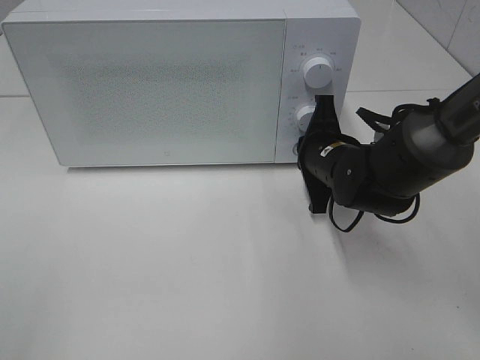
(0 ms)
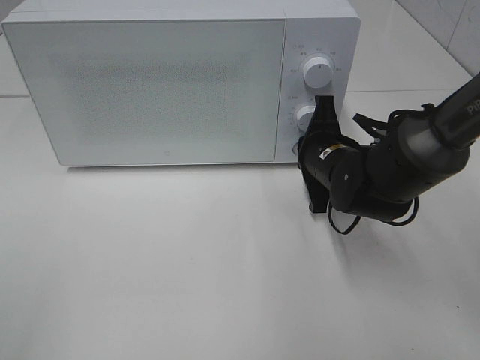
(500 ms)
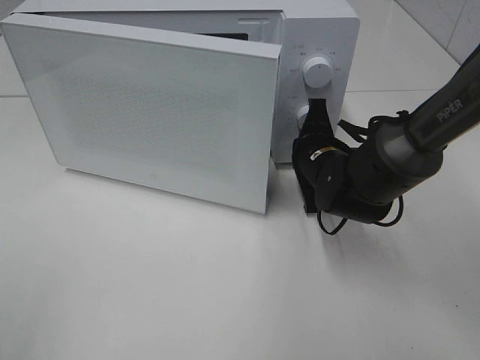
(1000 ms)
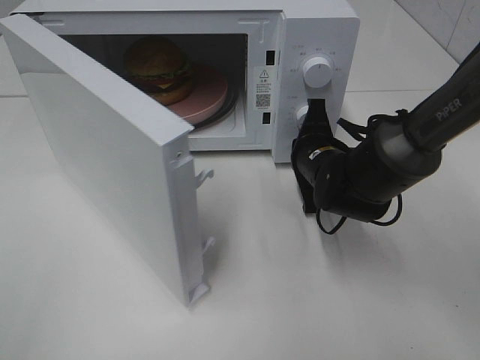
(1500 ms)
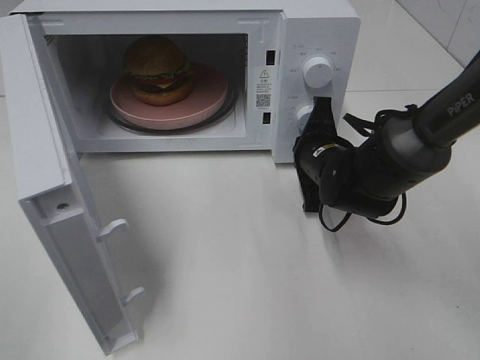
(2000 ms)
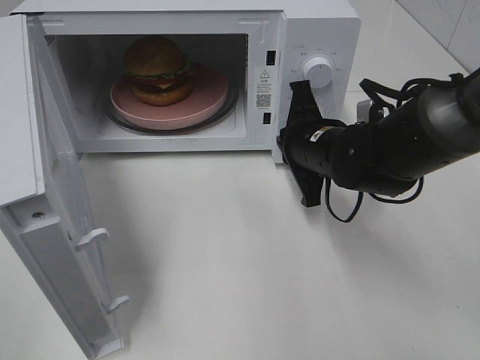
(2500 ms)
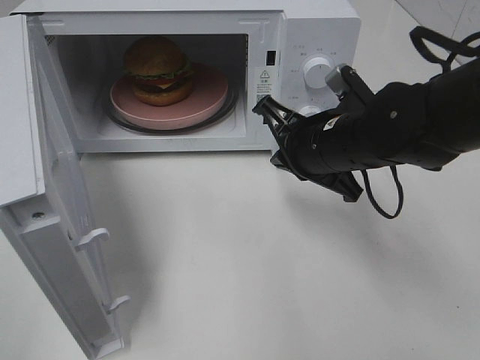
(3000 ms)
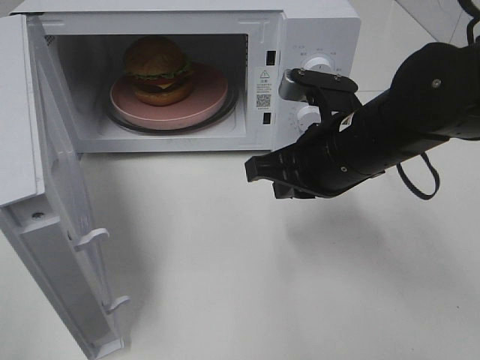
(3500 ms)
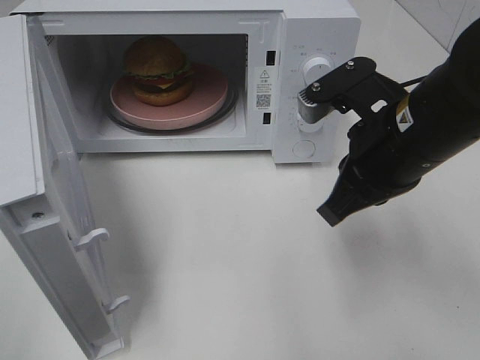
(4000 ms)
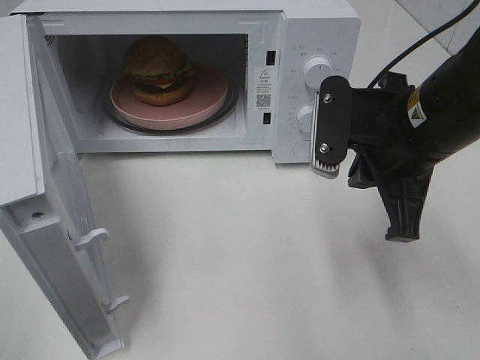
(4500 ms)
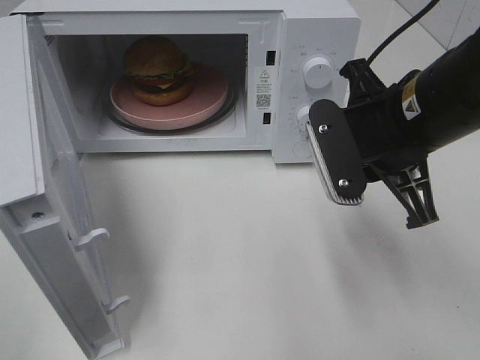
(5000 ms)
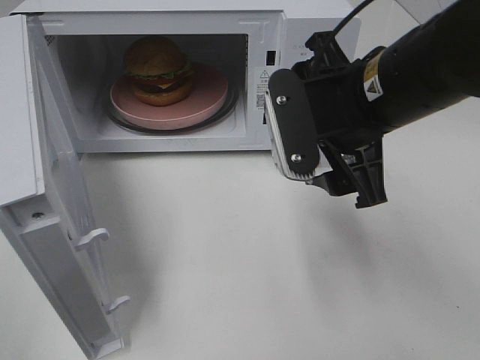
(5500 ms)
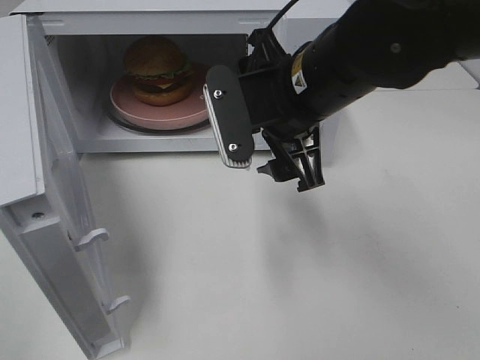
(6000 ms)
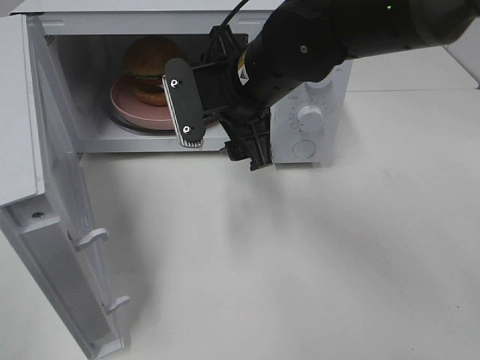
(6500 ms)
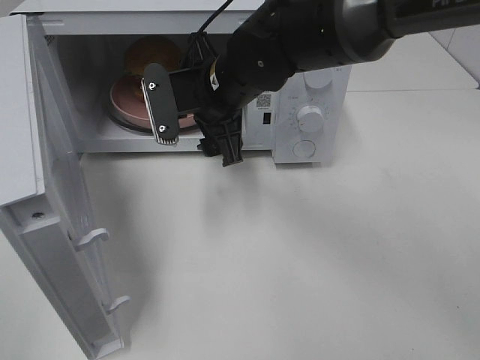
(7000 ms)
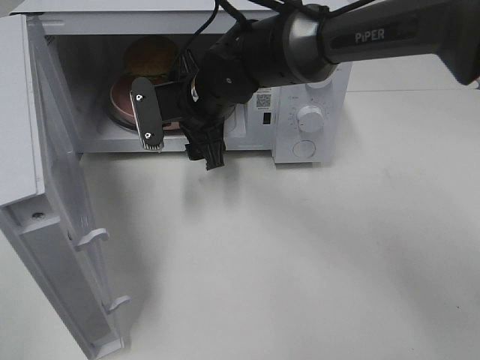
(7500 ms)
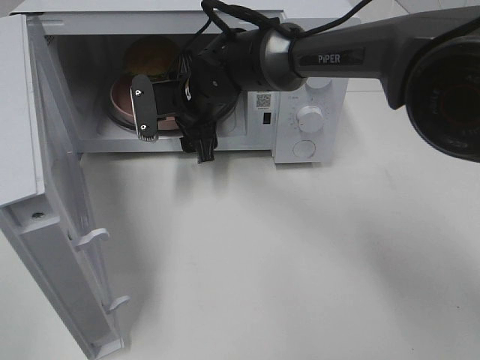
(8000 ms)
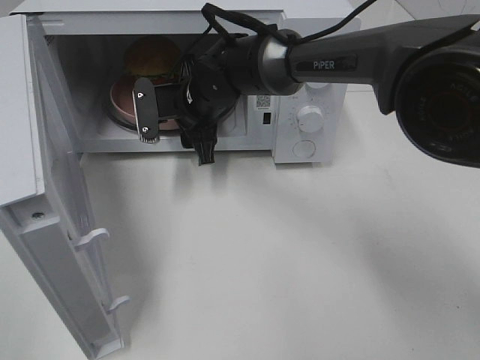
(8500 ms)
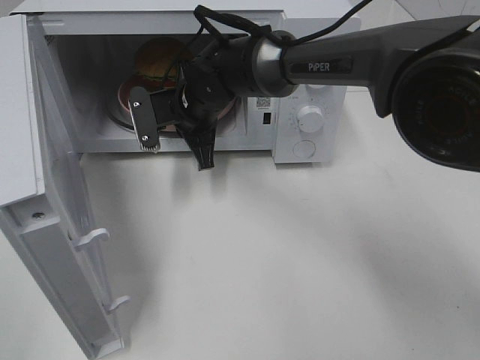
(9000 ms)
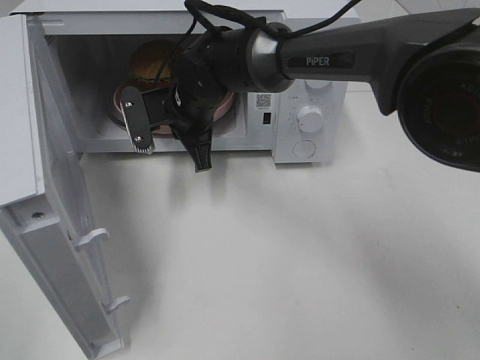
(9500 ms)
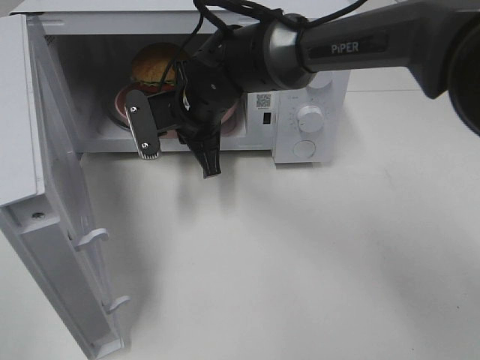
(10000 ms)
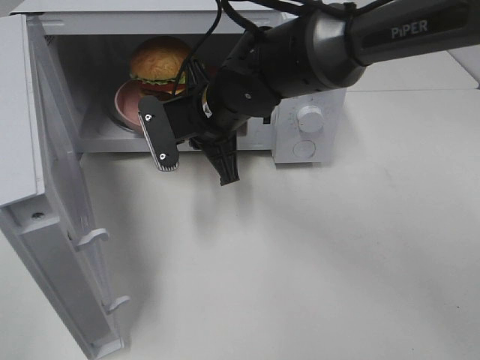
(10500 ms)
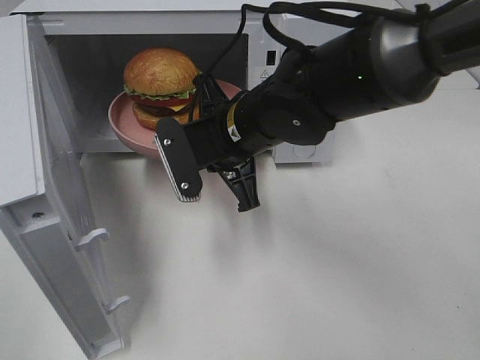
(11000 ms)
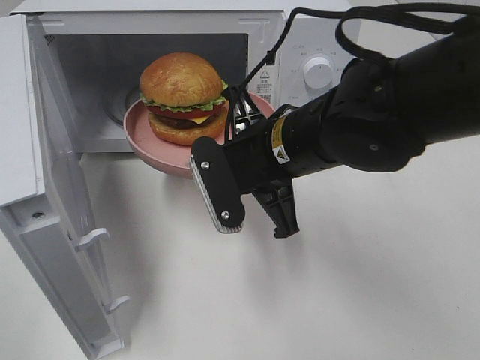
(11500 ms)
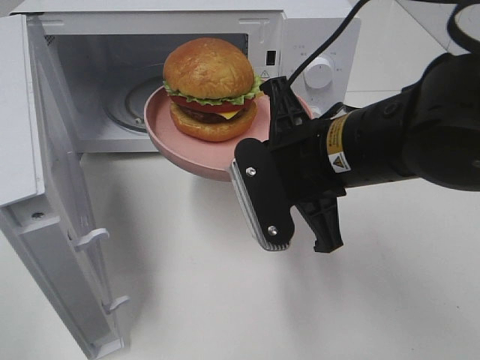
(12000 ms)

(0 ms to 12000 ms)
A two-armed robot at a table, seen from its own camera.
Task of the whole recording: Heat the burger.
Step, 0 ms - 2000 ms: Right hand: press the switch.
Step, 2500 ms - 8500 ms: Right hand: grab the plate with the hamburger.
2000 ms - 4000 ms: The right gripper moves upward and backward, about 15 cm.
4000 ms - 6000 ms: The right gripper shifts some 10 cm to the left, and opens up.
6000 ms - 8000 ms: The right gripper is displaced forward, to the left and downward by roughly 20 cm.
8000 ms - 10000 ms: The right gripper closes.
10000 ms - 12000 ms: The right gripper is displaced backward and to the right by roughly 20 cm.

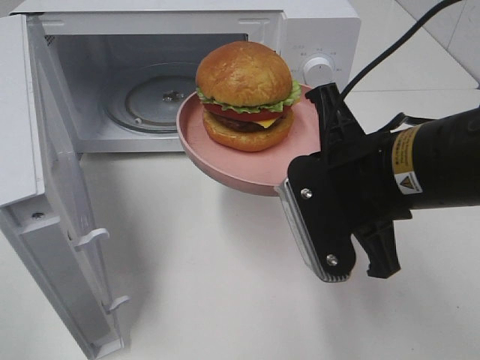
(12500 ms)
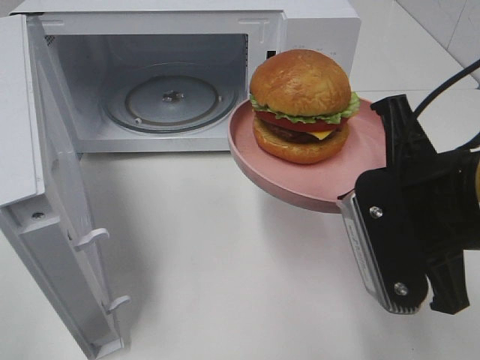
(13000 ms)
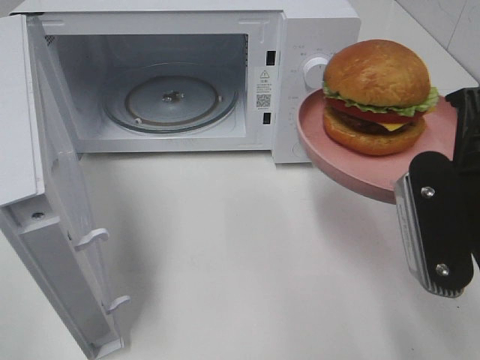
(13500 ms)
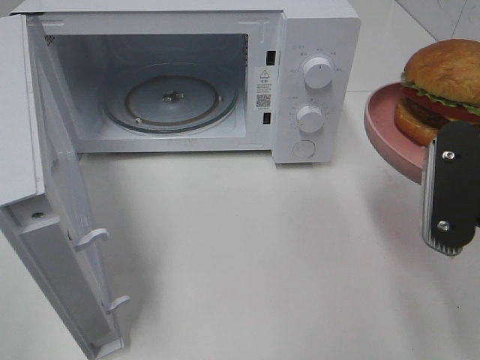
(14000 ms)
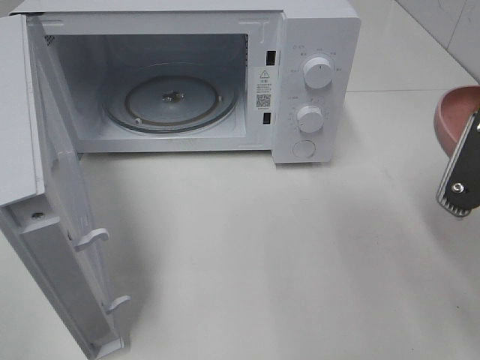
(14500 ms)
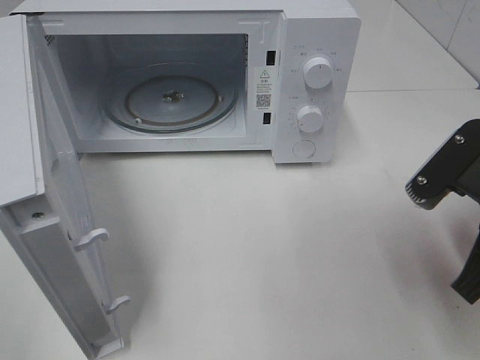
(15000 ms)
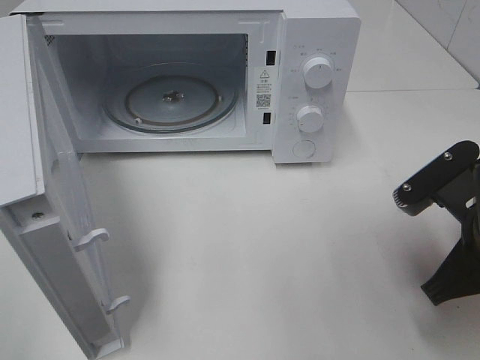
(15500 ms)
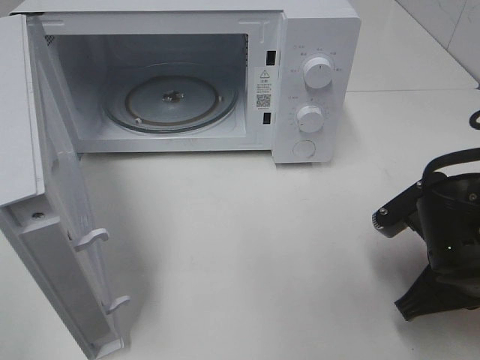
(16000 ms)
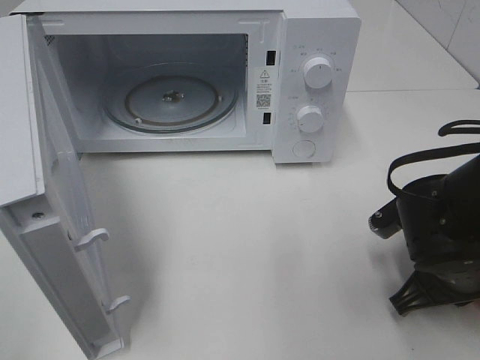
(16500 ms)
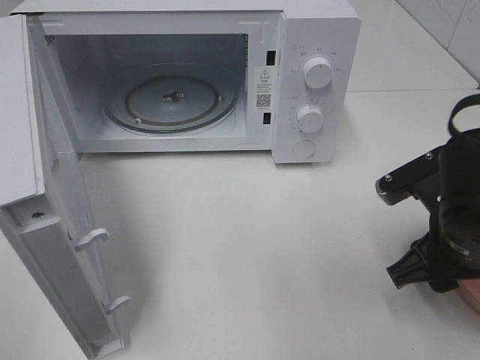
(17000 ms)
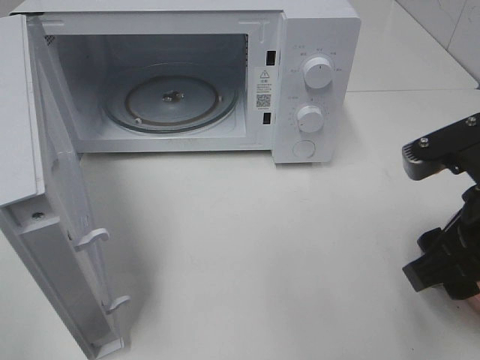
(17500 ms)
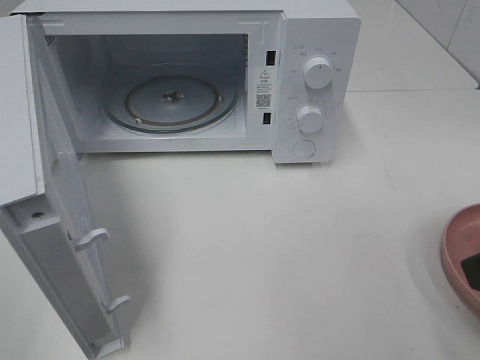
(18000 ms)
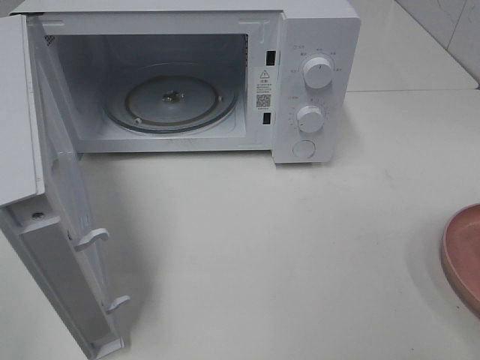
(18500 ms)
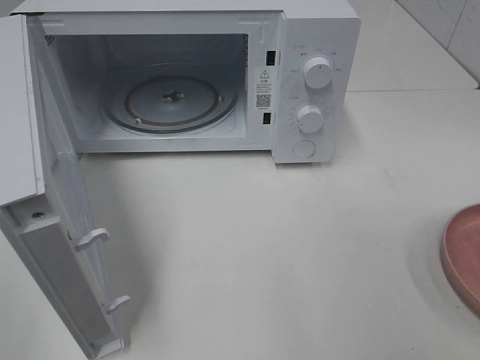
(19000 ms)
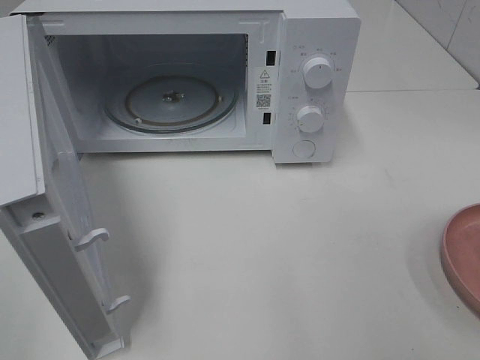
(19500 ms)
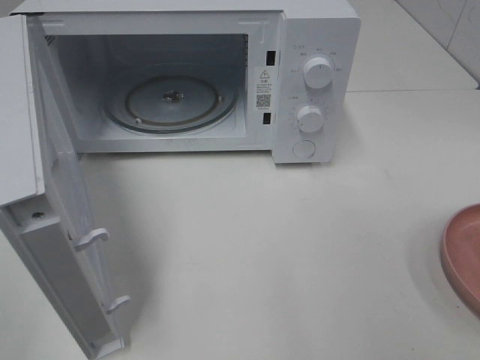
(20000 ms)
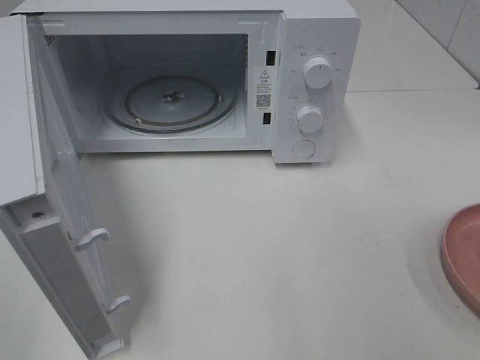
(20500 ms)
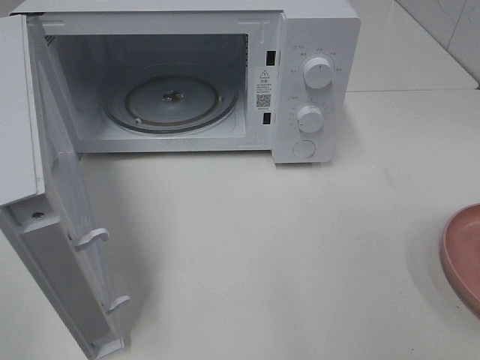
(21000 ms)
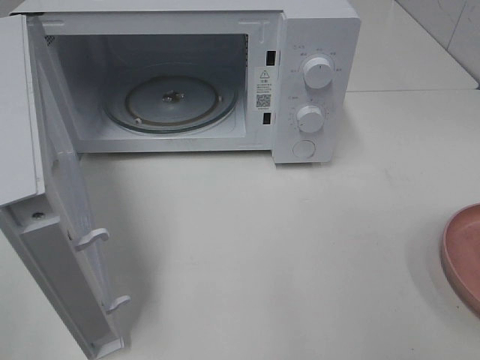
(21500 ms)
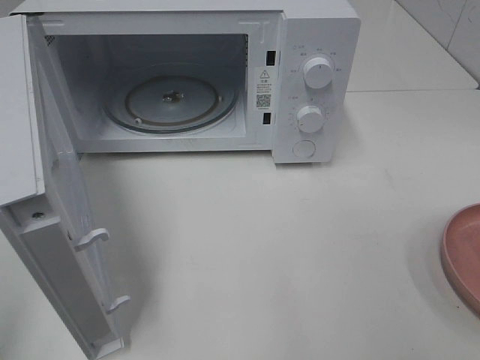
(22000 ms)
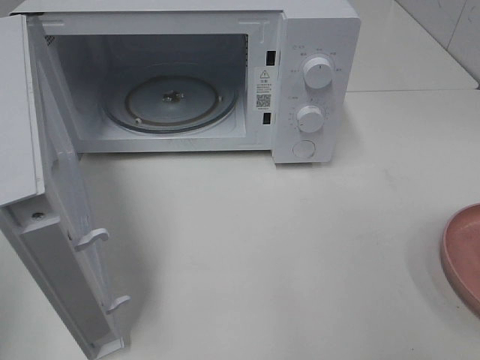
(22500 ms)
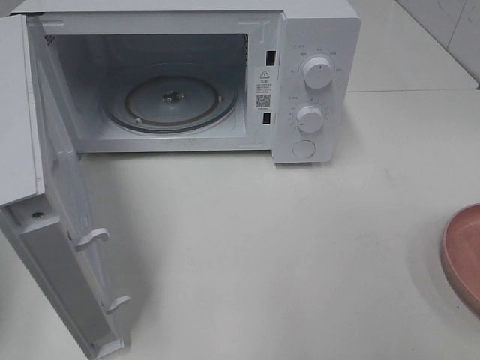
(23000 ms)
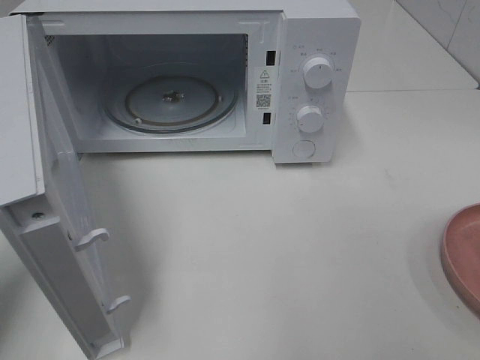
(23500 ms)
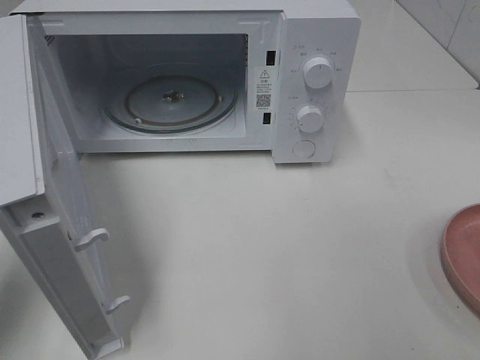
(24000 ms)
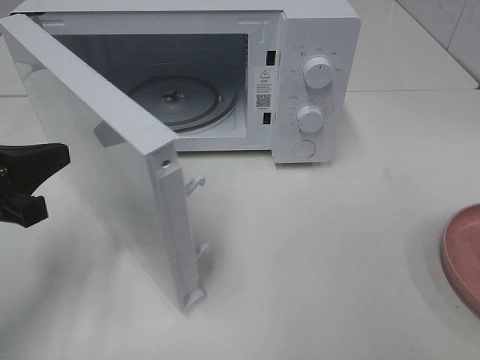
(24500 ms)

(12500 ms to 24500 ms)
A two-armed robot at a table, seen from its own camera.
Task of the whole recording: Heat the burger.
Step, 12500 ms - 16500 ms: Right hand: place the plate on the table.
12500 ms - 14500 ms: The right gripper travels to the right by roughly 10 cm.
14500 ms - 16500 ms: The right gripper goes some 15 cm downward.
16500 ms - 18500 ms: The right gripper goes roughly 25 cm upward and backward, and opens.
22500 ms - 24500 ms: The left gripper is displaced forward, downward and to the right by about 20 cm.

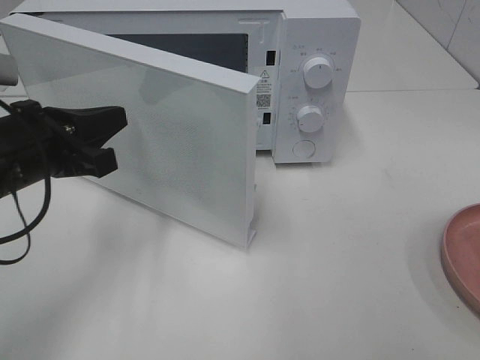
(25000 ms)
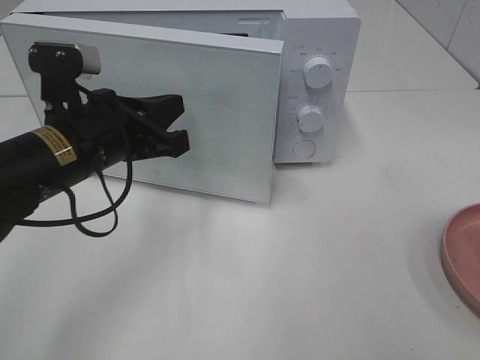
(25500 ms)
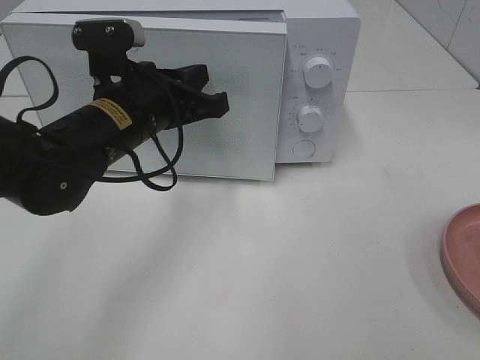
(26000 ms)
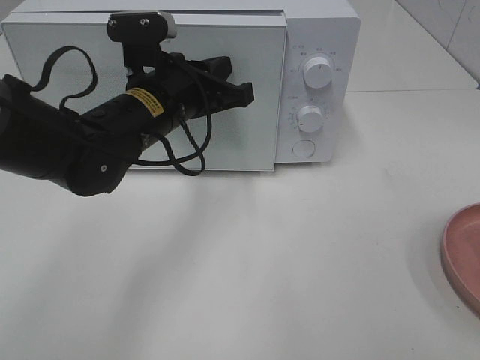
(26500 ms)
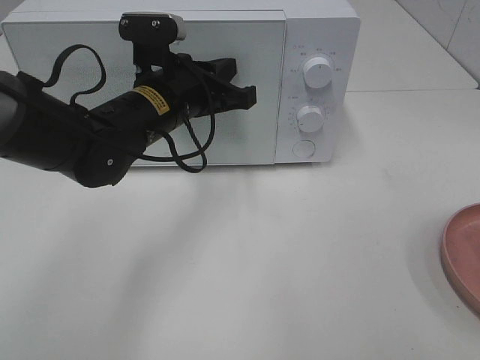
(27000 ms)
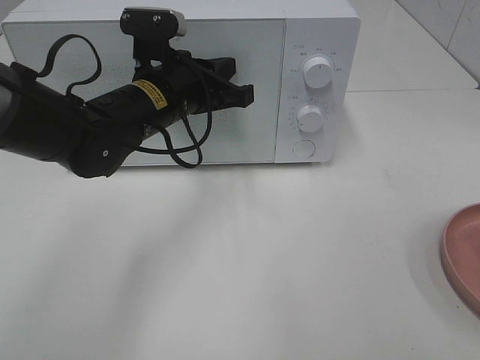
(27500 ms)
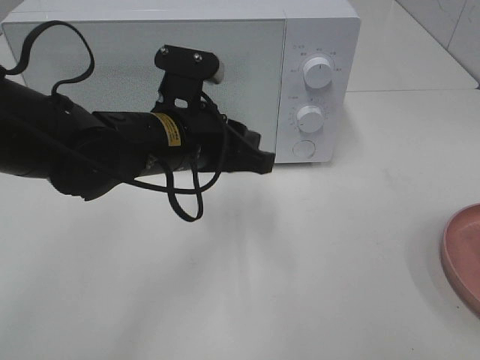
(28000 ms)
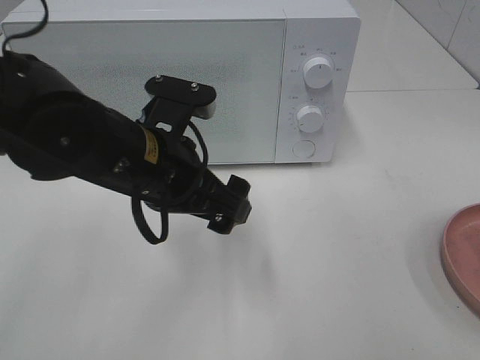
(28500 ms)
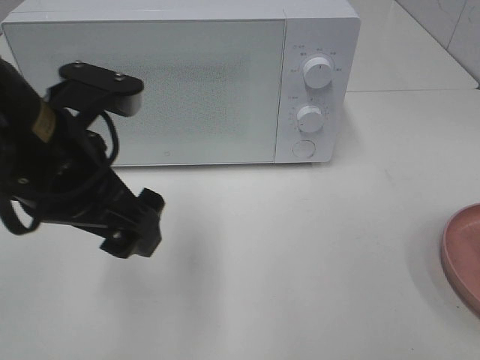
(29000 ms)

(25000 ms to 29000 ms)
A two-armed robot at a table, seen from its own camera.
Task of the whole recording: Heat the burger.
Step, 25000 ms - 27500 ms: Left hand: close the microwave door.
25000 ms - 27000 ms: The left gripper moves to the right and forward, roughly 15 cm.
27000 ms - 29000 ms: The left gripper travels backward and upward by roughly 15 cm, and opens its fingers.
